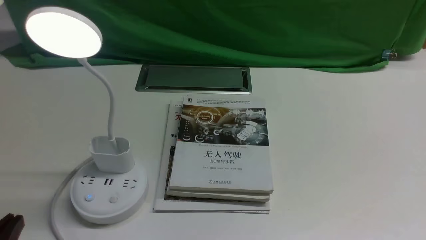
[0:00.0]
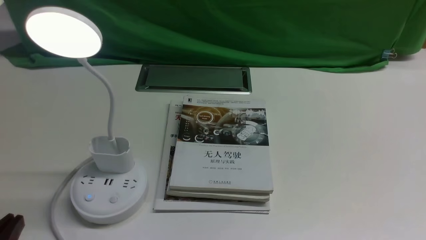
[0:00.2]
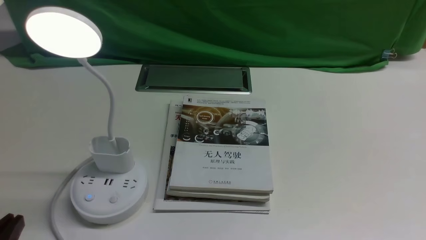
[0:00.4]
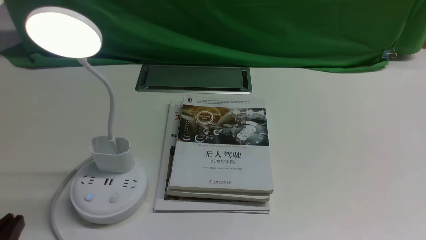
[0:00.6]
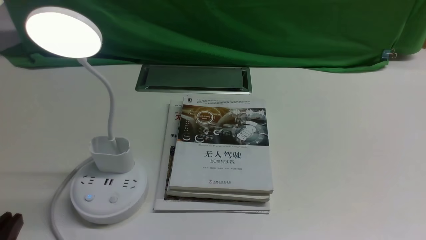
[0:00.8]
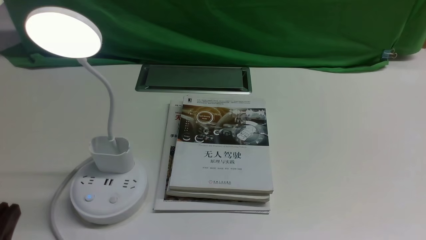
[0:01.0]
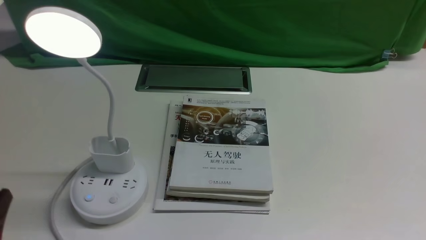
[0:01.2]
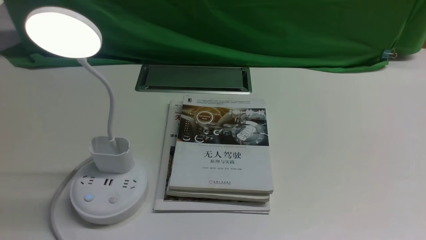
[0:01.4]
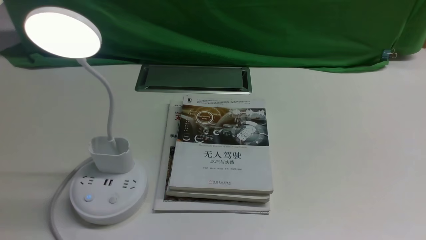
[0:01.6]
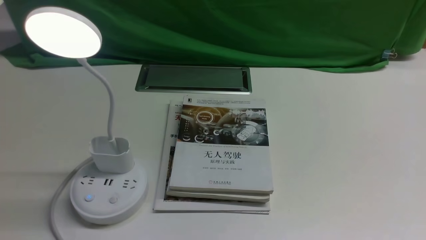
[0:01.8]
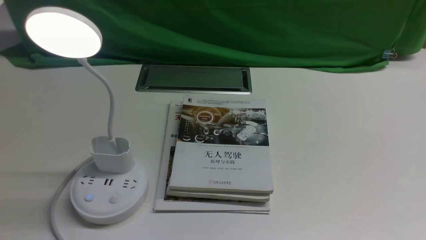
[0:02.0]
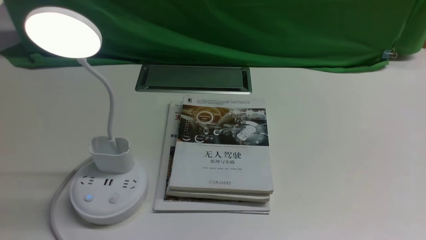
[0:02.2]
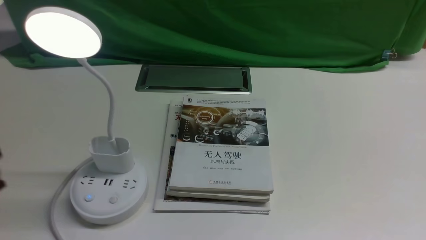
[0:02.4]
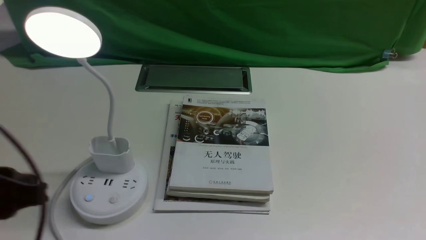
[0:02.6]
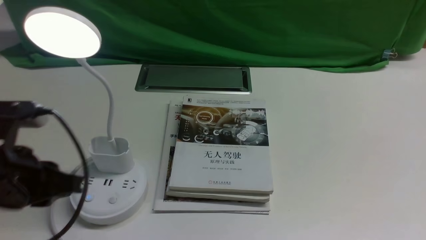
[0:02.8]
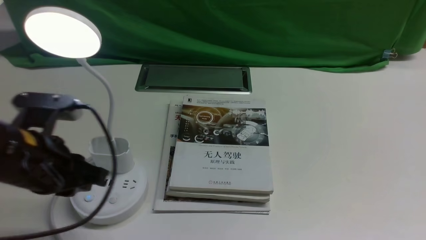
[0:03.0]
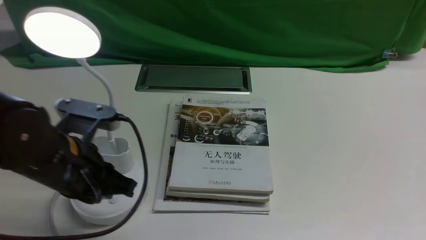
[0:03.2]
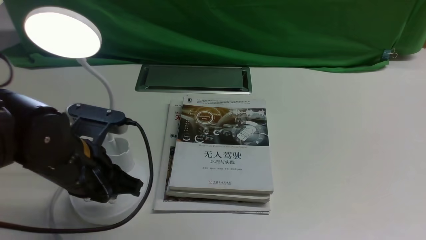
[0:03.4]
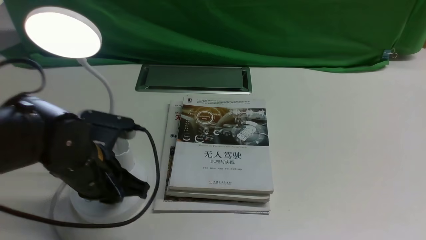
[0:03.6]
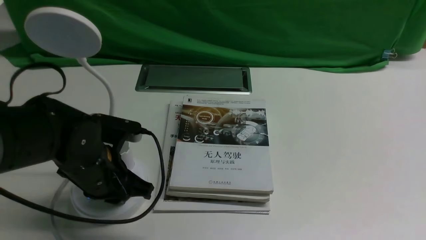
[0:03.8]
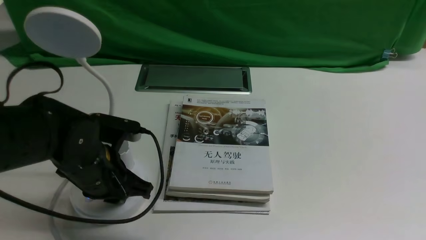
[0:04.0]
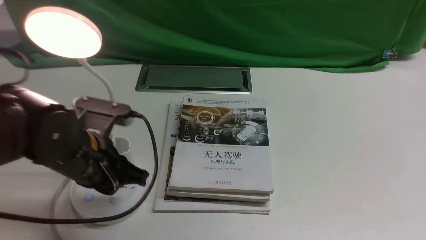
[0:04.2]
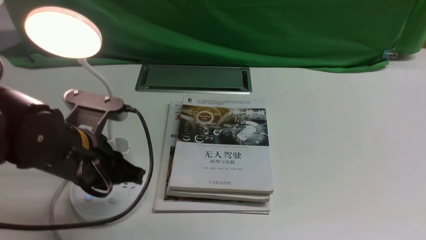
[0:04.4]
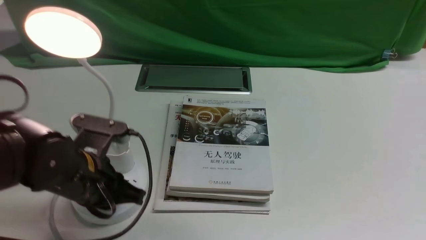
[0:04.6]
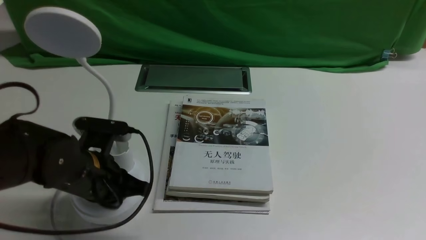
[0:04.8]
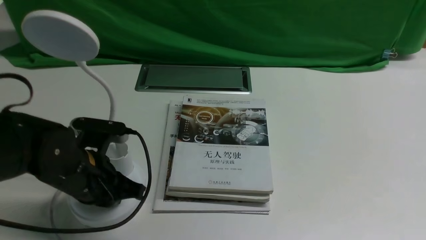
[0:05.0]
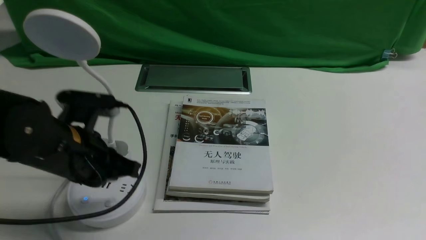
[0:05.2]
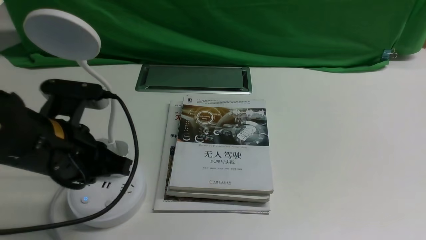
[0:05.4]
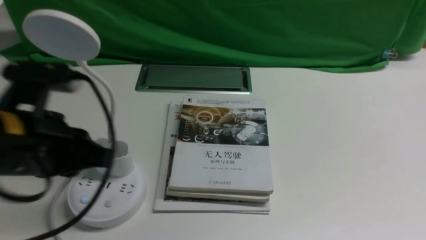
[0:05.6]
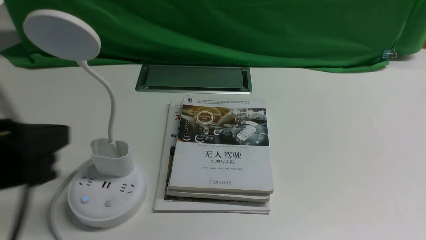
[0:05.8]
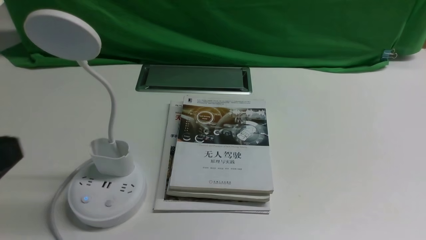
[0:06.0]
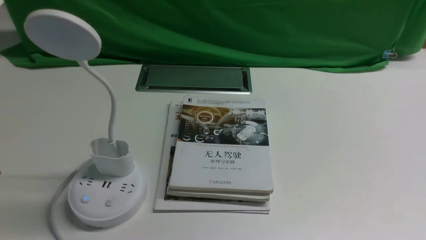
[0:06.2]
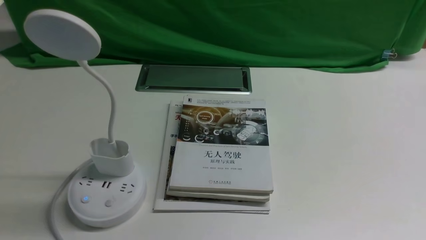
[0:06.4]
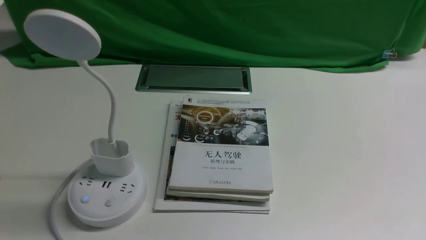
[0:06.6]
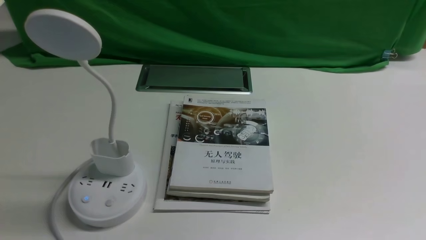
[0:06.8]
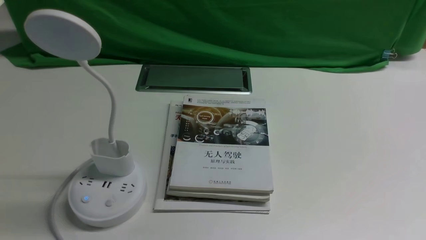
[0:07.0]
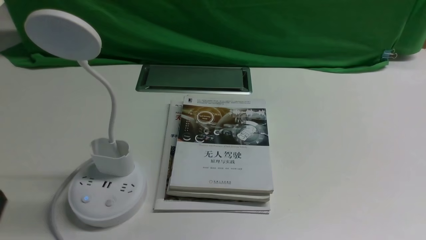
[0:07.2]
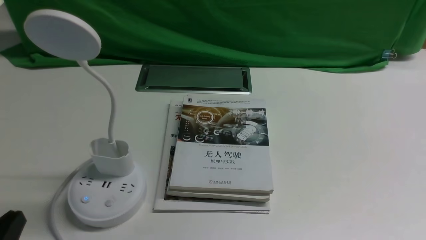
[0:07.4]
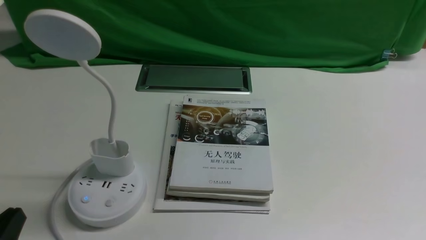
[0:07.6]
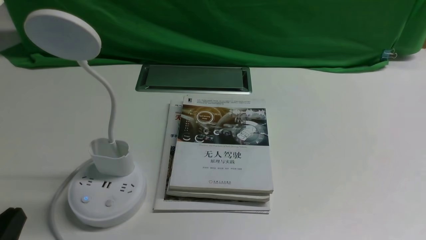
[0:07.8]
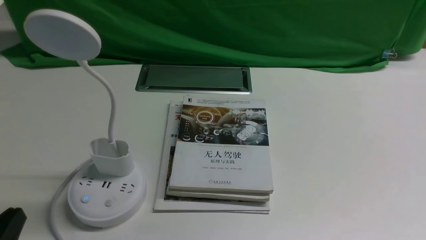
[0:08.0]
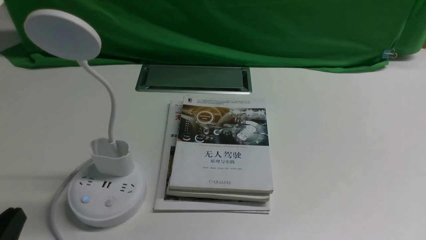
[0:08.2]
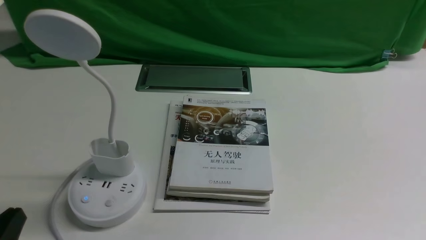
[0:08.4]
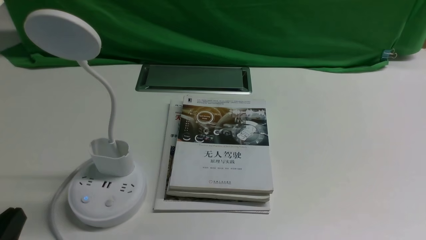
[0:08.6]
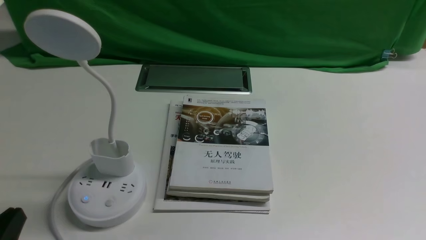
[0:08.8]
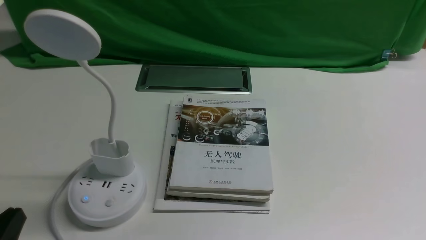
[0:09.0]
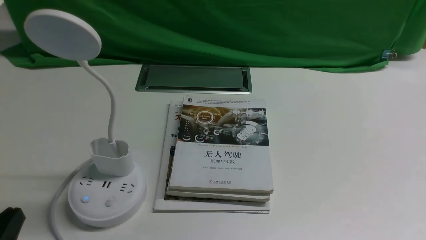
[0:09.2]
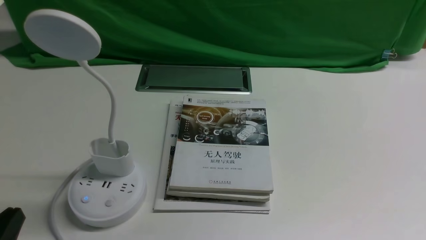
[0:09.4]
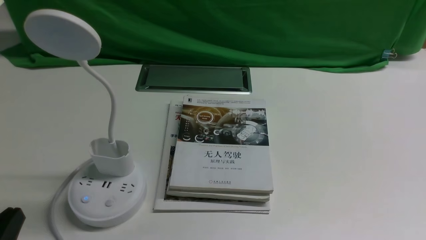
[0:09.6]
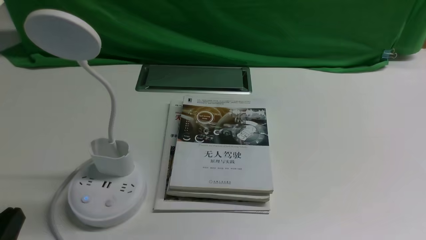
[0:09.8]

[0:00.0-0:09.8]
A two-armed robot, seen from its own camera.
Task of the whole recording: turn off the desk lamp on the white desktop by hand.
Step, 0:00.0 to 0:05.2: use the left arm to press the button switch on the lamp holder.
0:01.4 to 0:02.8: The left gripper heads forward, covering about 15 cm.
0:02.8 to 0:04.2: The left gripper heads forward and to the right, covering some 10 cm.
0:04.2 to 0:05.6: The left gripper moves upward and backward, approximately 10 cm, and closes its fingers.
0:05.6 to 0:07.0: The left gripper shifts about 15 cm backward and to the left.
0:07.0 to 0:08.4: The left gripper moves downward, roughly 10 cm.
0:08.4 to 0:09.8: The two grippers keep their place.
